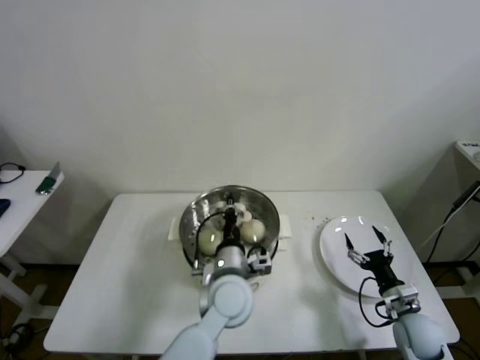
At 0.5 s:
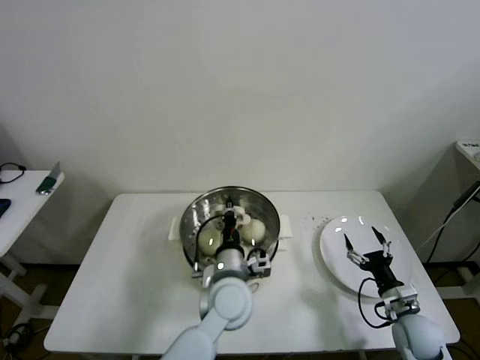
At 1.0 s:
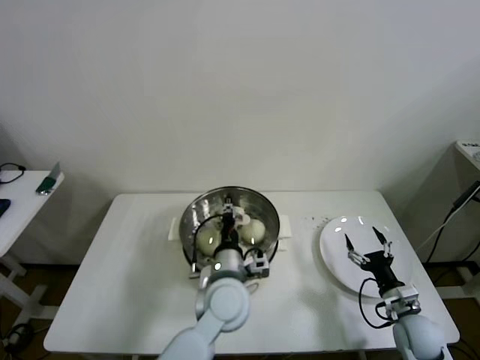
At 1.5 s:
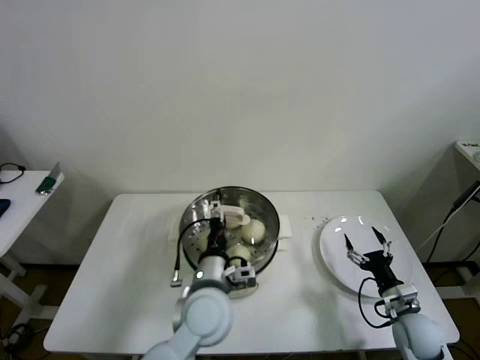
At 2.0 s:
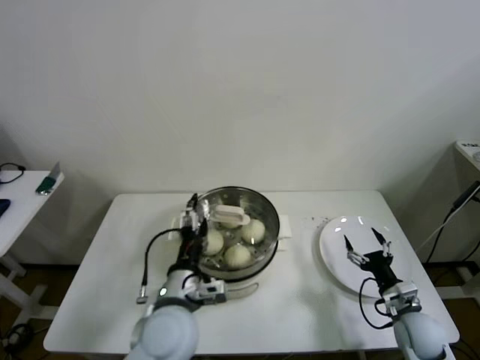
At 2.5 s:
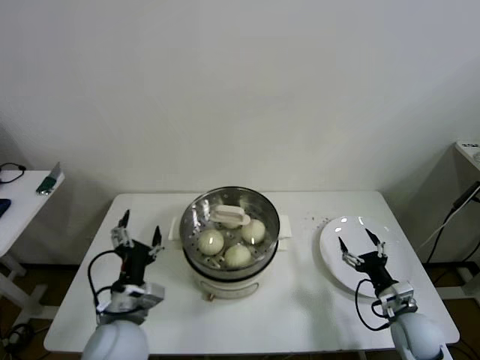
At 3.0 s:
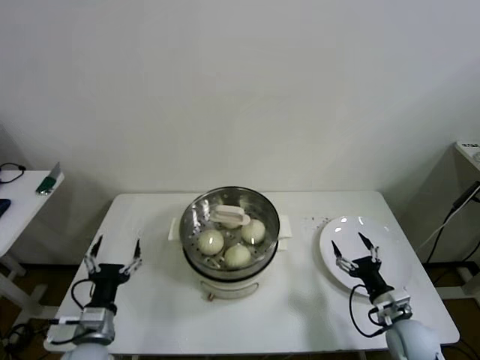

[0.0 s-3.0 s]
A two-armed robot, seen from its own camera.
Step, 0.0 to 2.0 s: Place the pot lid on the steamer with left gripper.
0.0 to 1.5 s: The left gripper opens.
1.5 to 3.0 s: The left gripper is displaced to the left by about 25 cm.
